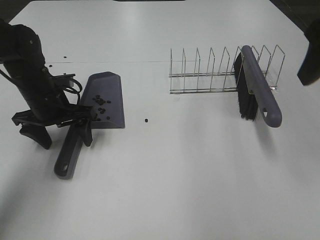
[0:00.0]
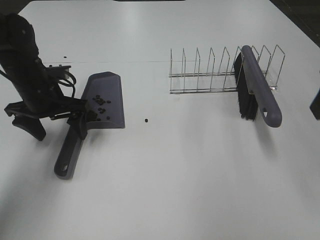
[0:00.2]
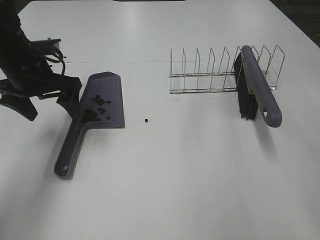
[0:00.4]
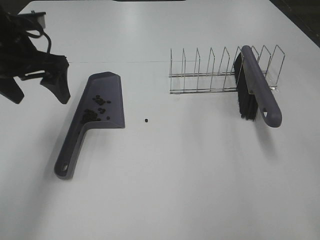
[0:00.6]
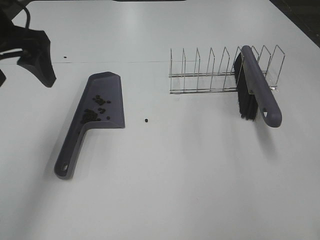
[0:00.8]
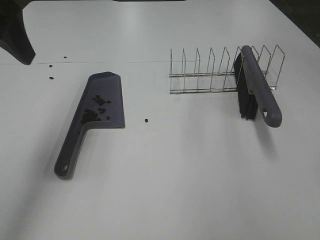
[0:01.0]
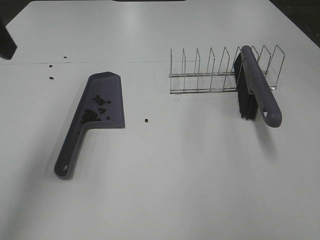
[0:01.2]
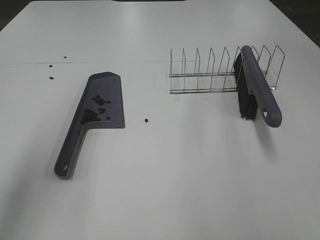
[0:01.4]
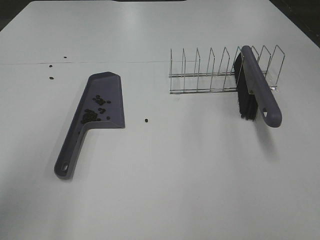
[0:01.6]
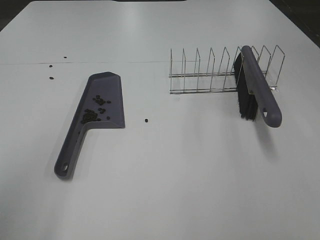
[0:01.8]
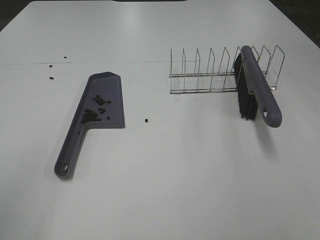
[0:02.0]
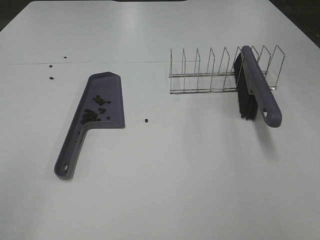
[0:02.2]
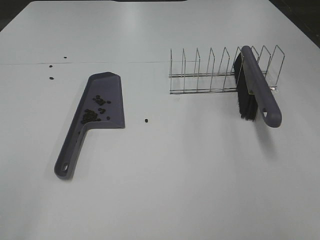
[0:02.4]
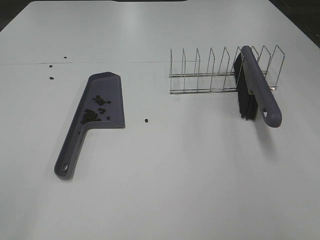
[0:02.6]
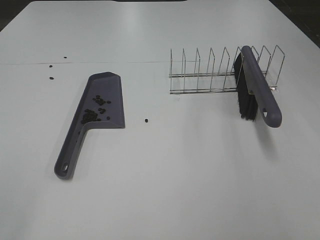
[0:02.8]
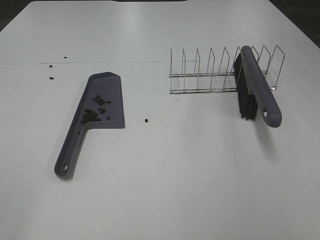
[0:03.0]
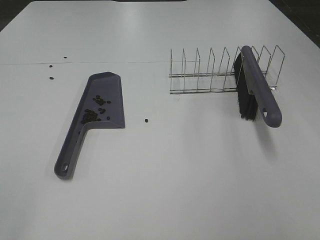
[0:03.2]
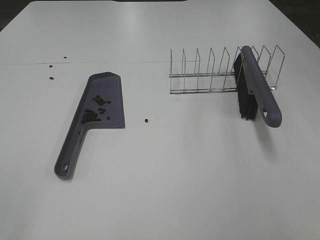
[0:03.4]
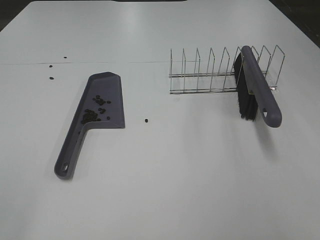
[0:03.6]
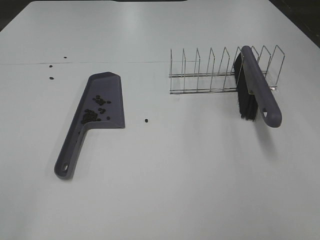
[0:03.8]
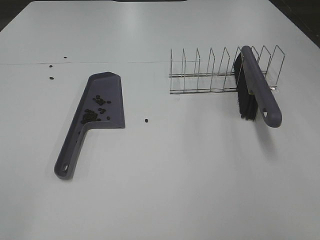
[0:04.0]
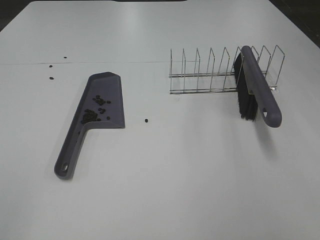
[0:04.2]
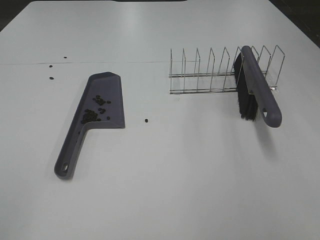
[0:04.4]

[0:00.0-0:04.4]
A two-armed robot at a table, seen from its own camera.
Task of the whole recording: Sweep Coffee Bean.
0:00.0 to 0:01.4: The right gripper heads backward, covering roughly 20 cm, while the left gripper shifts roughly 30 cm upward and backward.
0:01.4 to 0:03.0: The left gripper is displaced backward by about 20 cm.

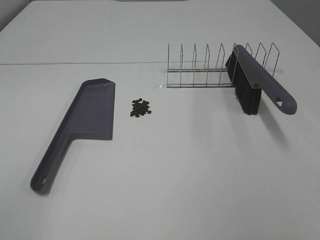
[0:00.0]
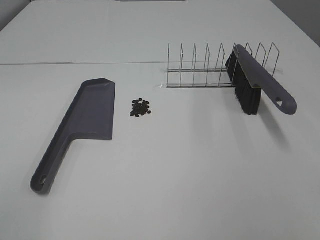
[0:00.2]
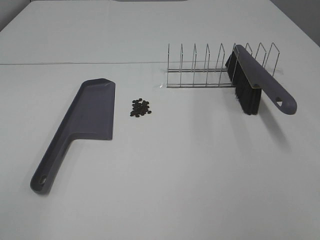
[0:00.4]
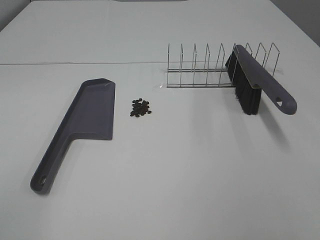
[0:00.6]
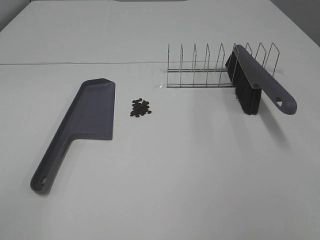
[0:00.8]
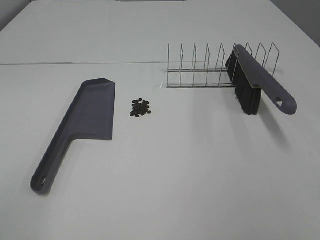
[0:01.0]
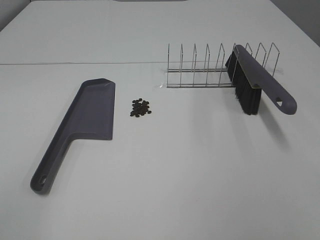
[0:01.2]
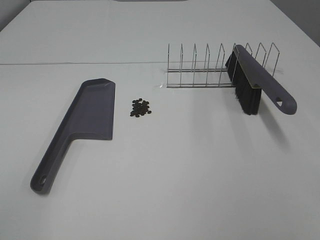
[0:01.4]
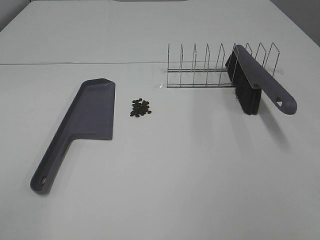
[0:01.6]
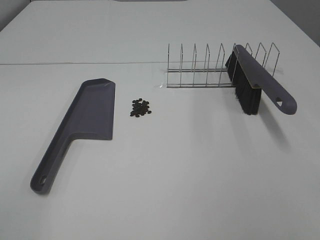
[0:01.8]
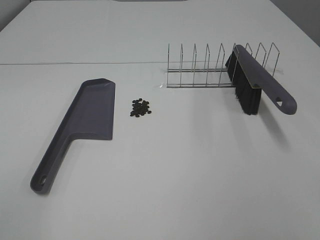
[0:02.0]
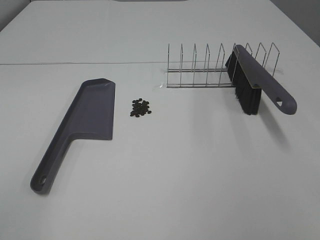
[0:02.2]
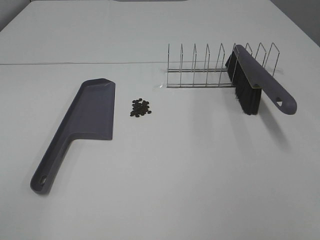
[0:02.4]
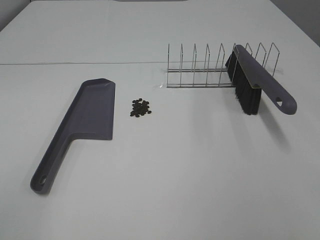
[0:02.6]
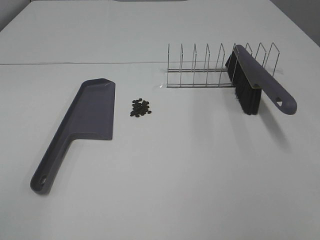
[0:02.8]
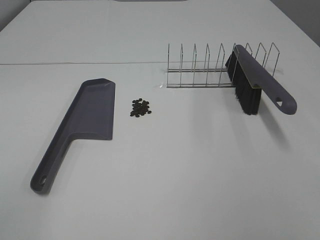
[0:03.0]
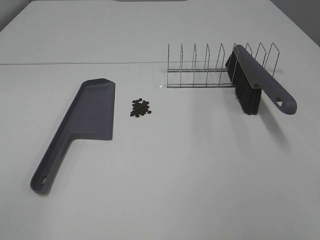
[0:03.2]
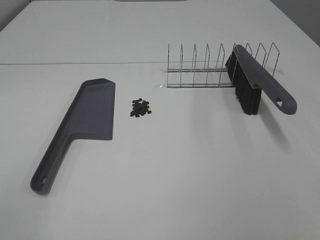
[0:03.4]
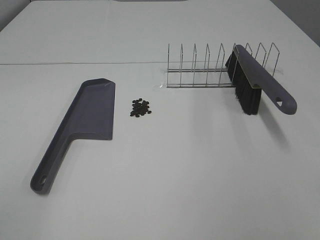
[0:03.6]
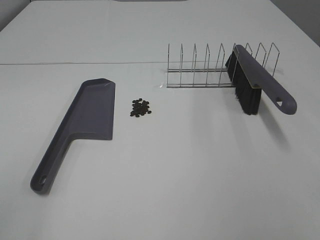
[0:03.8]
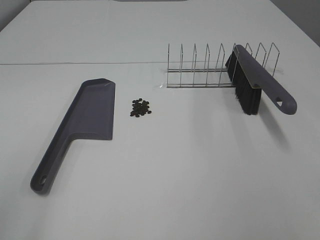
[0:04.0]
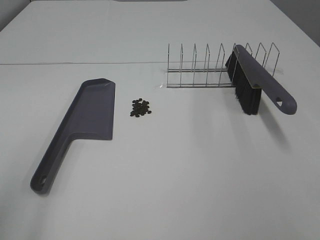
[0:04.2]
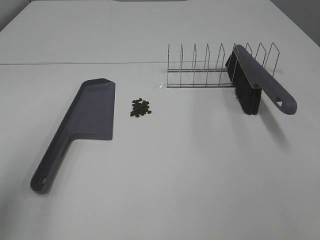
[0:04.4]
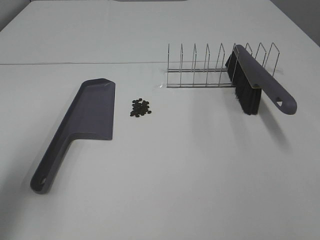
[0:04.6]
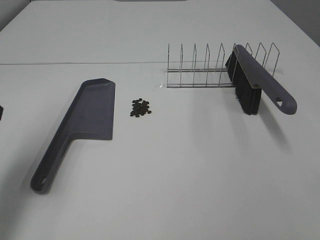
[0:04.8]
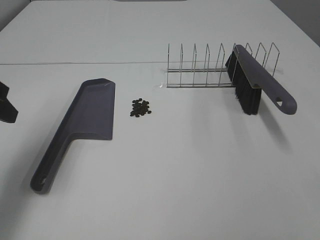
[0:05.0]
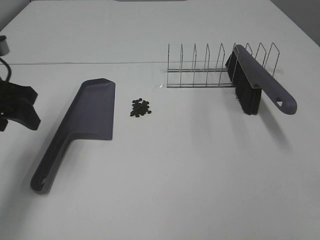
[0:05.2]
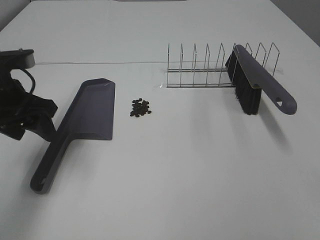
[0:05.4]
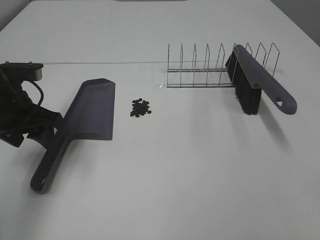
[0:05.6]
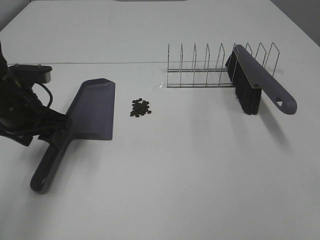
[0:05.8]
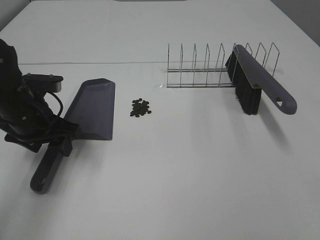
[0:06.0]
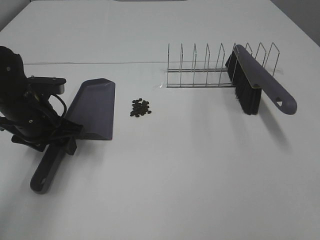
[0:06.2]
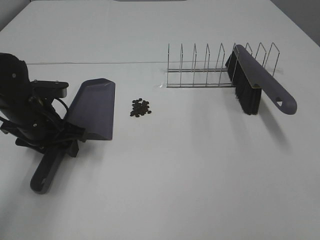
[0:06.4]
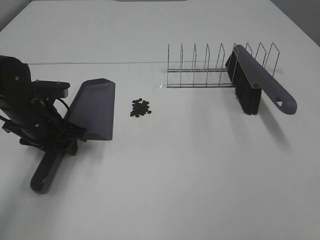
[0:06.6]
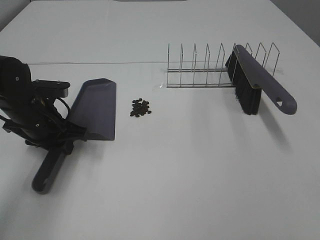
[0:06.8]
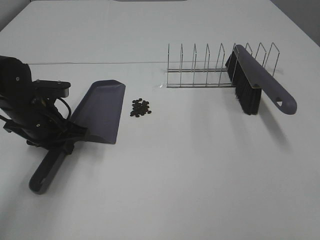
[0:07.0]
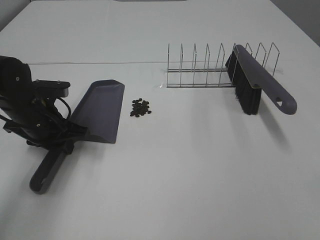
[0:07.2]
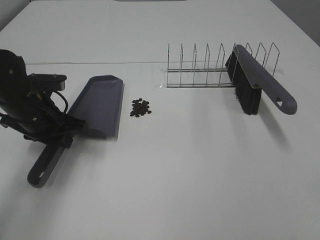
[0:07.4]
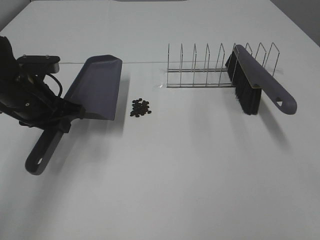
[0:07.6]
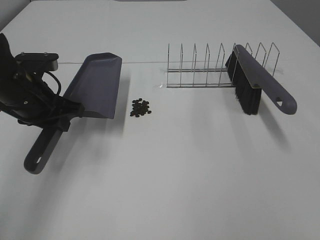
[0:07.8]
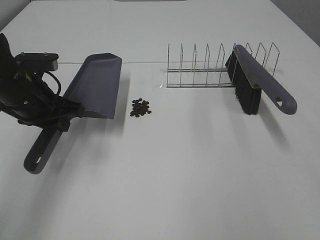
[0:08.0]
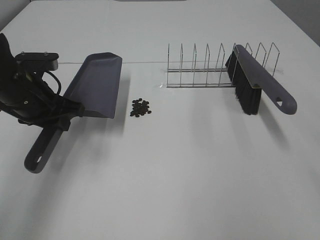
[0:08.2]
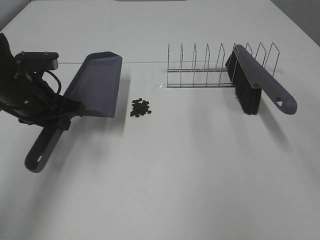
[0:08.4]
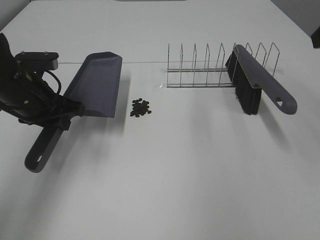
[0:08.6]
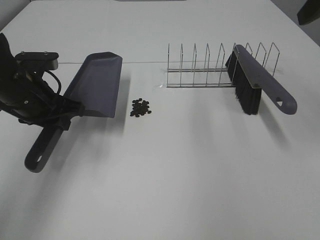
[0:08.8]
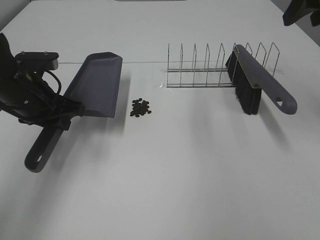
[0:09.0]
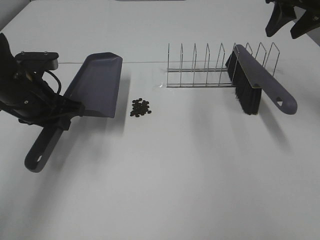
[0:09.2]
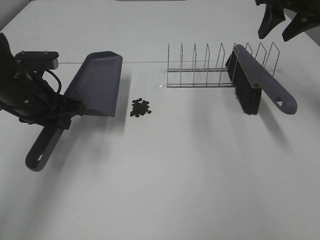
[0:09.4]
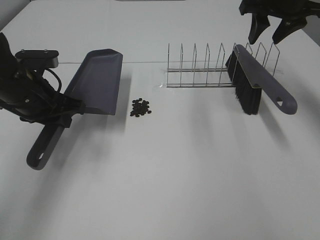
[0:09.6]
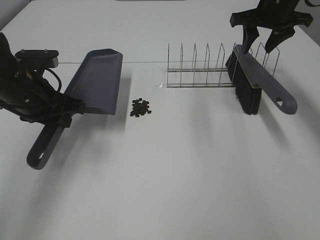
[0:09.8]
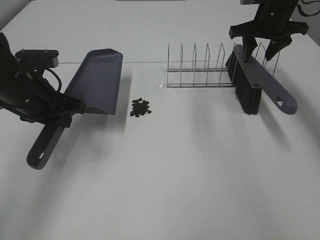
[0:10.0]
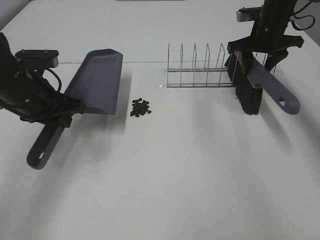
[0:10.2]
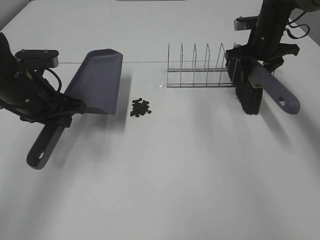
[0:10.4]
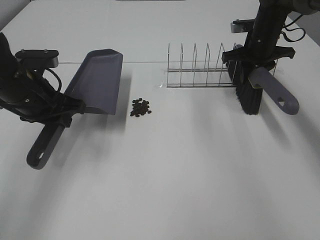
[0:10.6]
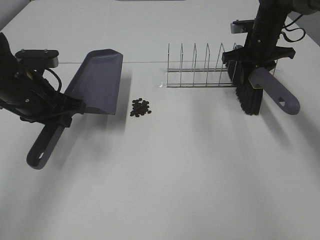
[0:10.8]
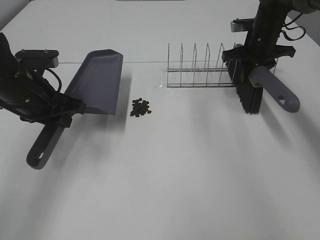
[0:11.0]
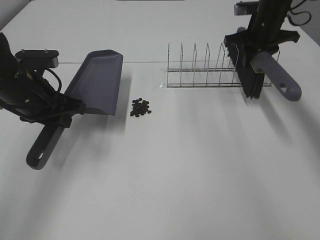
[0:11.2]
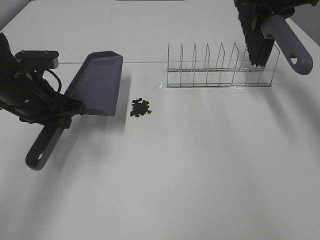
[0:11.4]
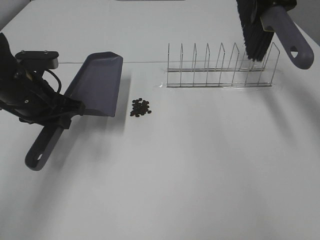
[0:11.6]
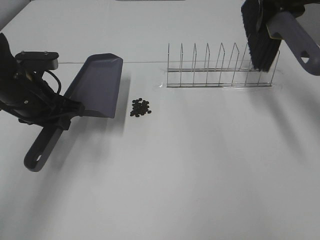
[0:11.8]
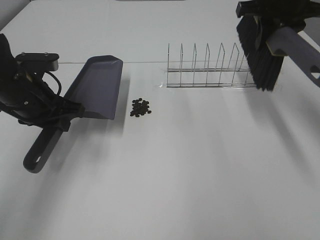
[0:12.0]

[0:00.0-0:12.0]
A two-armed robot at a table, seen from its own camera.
Task of the whole recording: Sweep Coffee Bean.
Step, 0:00.0 to 0:07.0: Left hand: grab the dustpan.
Step, 0:07.6 to 0:10.8: Right hand:grab the broom.
0:00.0 to 0:03.0: The two grippers keep their place.
0:03.0 to 0:04.4: The left gripper moves forward, some 15 cm.
0:04.4 to 0:06.0: The left gripper moves forward and downward, about 25 cm.
0:06.0 to 0:07.6: The left gripper closes its fingers.
0:07.6 to 0:09.0: The right gripper shifts roughly 35 cm forward.
0:09.0 to 0:10.4: The right gripper moves downward and forward, about 25 cm.
0:10.4 to 0:12.0: The right gripper shifts roughly 15 cm upward and backward, and closes up.

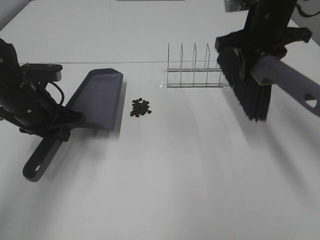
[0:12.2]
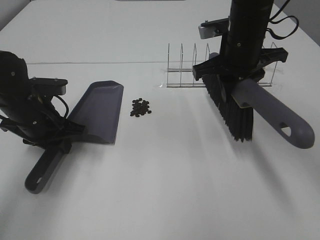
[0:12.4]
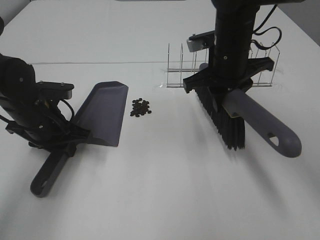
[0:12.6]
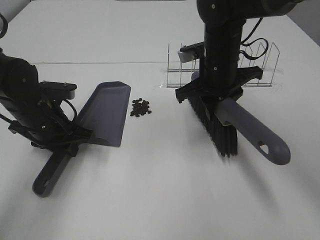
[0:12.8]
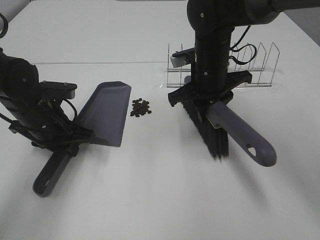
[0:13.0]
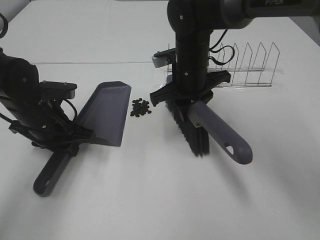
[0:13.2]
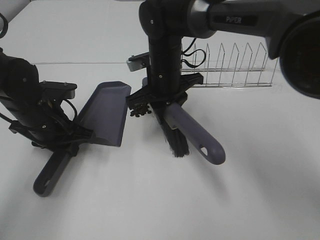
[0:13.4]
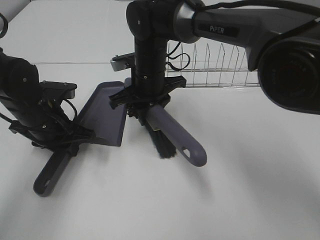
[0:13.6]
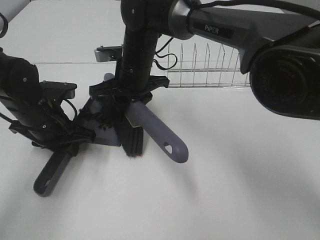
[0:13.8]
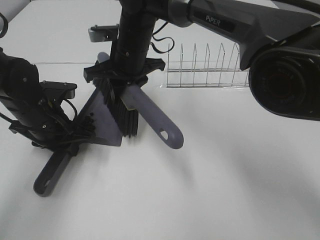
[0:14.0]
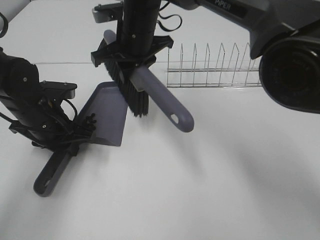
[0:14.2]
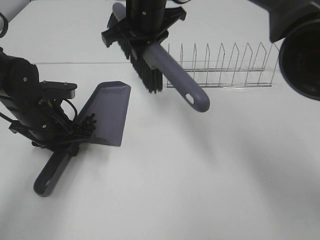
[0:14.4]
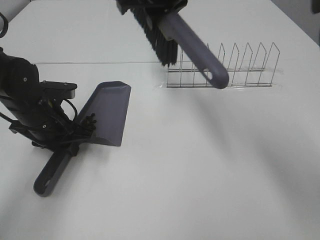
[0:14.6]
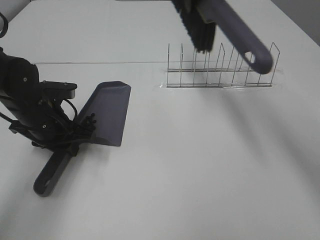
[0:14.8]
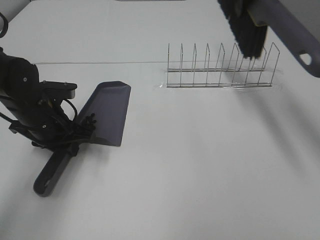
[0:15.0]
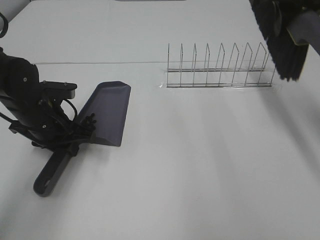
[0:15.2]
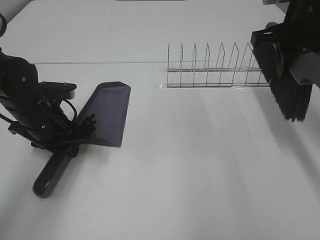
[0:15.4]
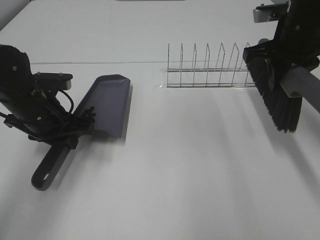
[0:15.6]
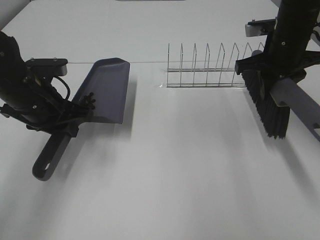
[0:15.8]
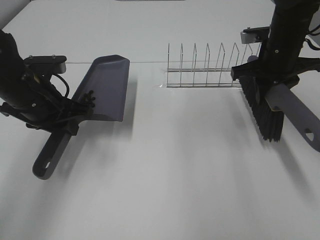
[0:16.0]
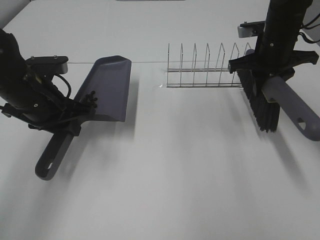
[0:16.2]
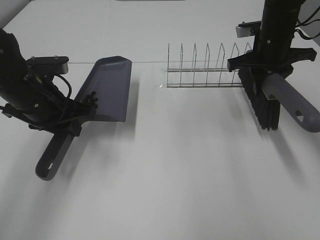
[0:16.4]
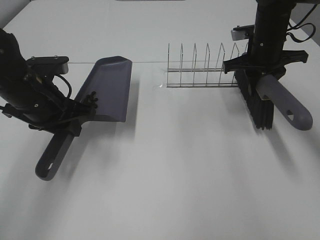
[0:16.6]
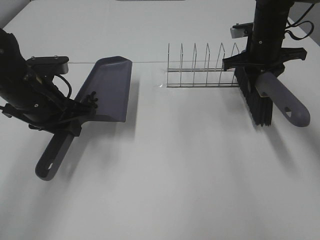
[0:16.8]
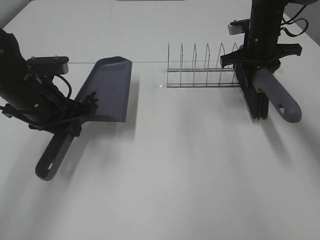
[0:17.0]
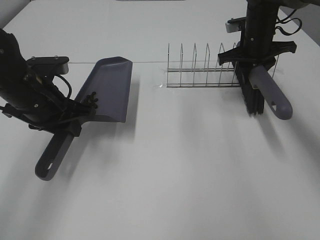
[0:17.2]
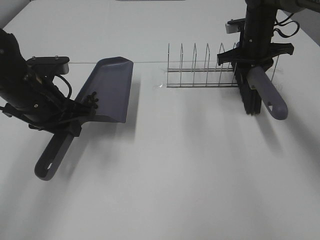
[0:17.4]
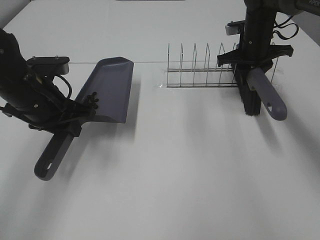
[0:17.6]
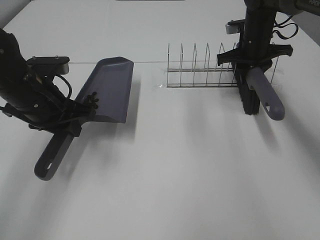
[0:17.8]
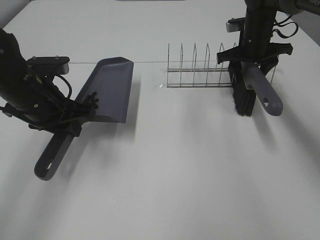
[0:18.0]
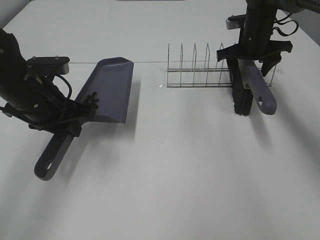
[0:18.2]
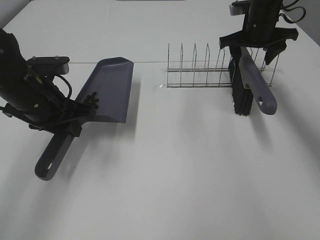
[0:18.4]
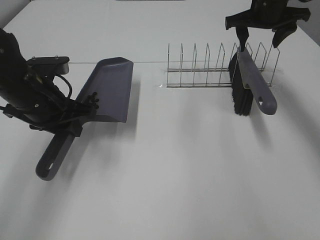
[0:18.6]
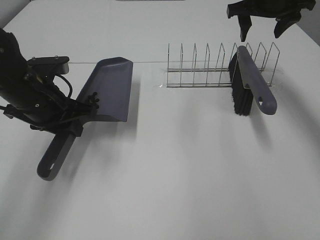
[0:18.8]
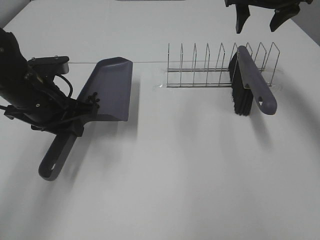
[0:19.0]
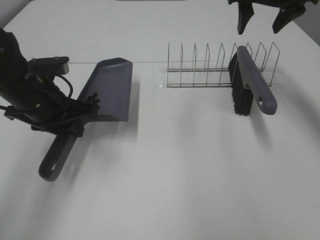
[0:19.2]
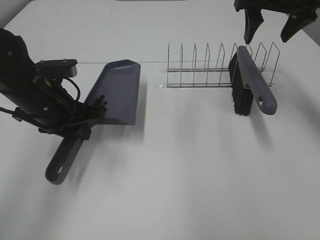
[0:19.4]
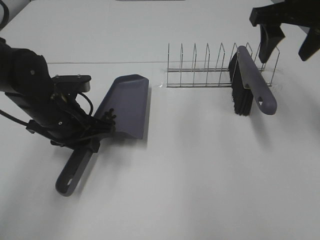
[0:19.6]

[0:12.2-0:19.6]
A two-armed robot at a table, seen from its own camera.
Task of the whole recording: Sweep Coffee Bean.
Step, 0:12.2 to 0:14.0: Right hand:sweep the coffee beans into the dustpan.
Step, 0:14.2 to 0:18.4: Right hand:place the broom on the rack.
0:12.2 to 0:13.6: The right gripper moves to the left and downward, roughly 20 cm.
0:13.6 to 0:15.2: The right gripper is displaced to the right and upward by approximately 30 cm.
0:15.2 to 0:16.6: The right gripper goes some 15 cm downward and forward; the left gripper is displaced upward by about 5 cm.
0:16.6 to 0:18.2: The right gripper heads forward, covering approximately 5 cm, and opens its fingers.
0:18.2 to 0:19.6: The right gripper heads backward and upward, covering about 20 cm.
